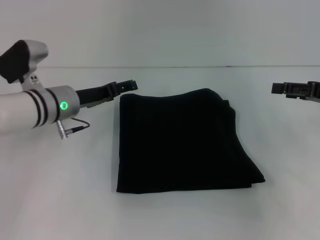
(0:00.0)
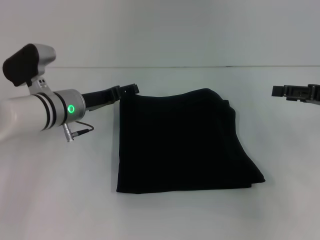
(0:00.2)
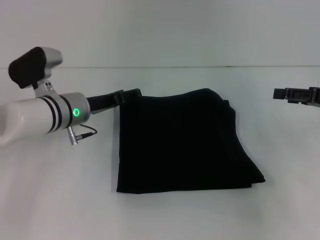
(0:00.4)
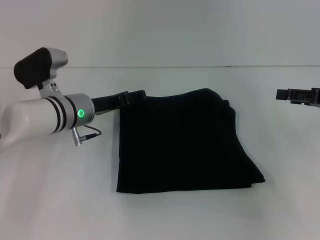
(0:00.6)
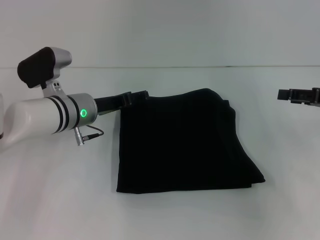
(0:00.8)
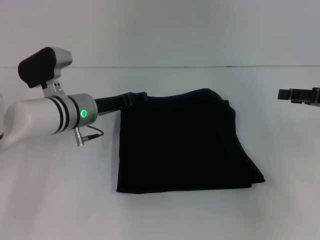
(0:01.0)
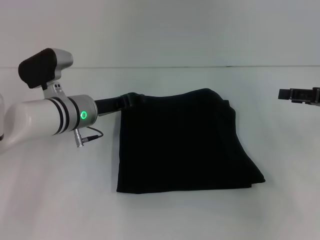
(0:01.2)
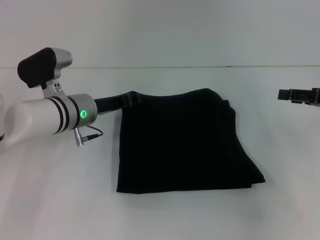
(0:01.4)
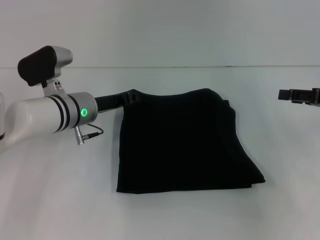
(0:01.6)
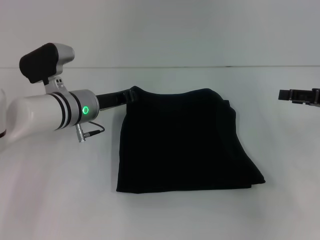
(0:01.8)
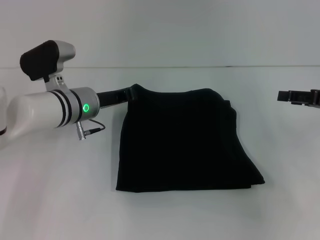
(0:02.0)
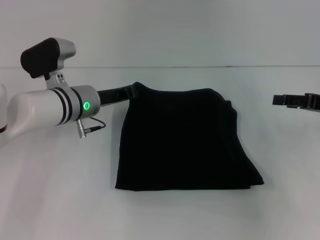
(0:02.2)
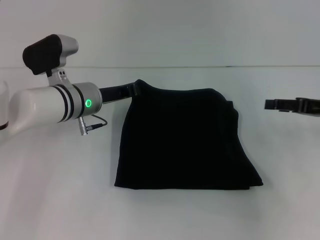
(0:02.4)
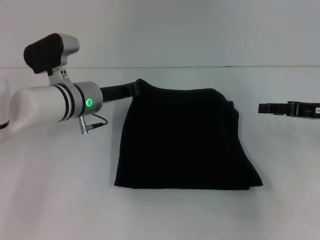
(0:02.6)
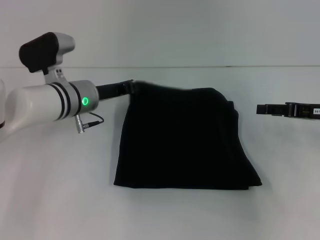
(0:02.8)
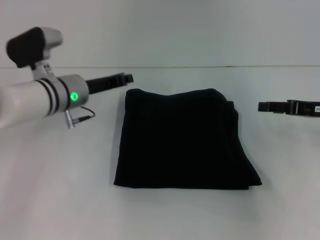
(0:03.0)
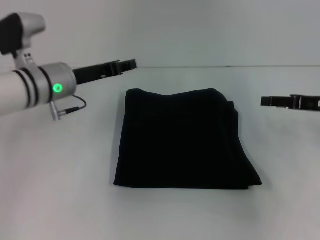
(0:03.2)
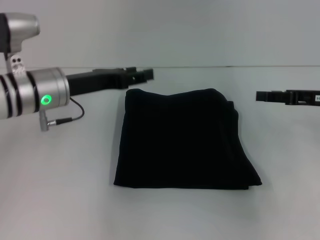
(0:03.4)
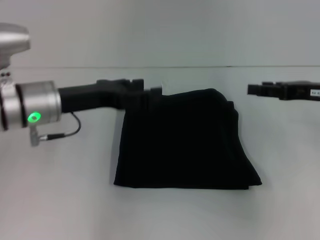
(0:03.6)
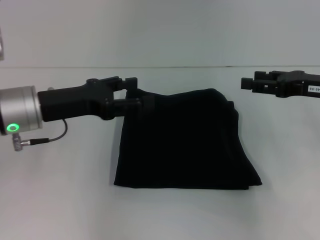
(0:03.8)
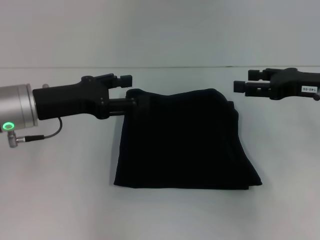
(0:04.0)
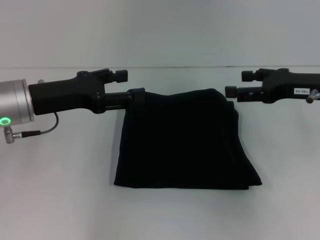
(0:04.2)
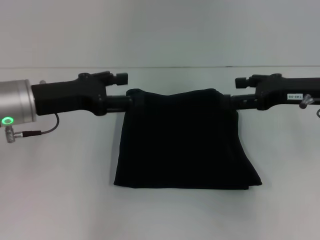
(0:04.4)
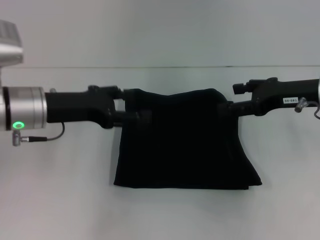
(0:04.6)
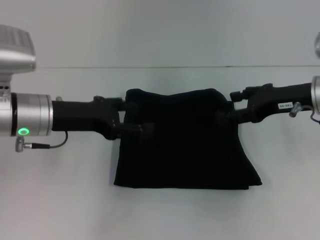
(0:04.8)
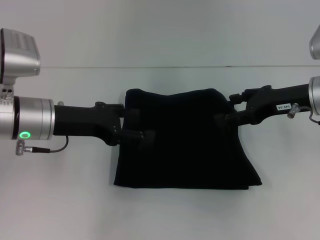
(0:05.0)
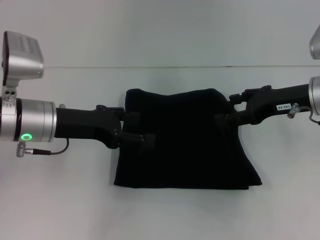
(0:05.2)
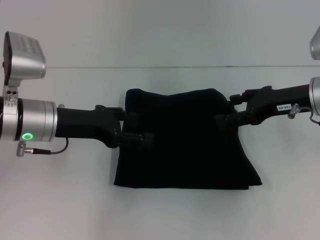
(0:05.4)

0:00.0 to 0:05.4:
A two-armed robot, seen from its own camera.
0:00.0 to 0:01.4: The left gripper closes.
0:01.4 to 0:02.8: The left gripper closes its fingers.
0:02.8 to 0:04.0: The right gripper changes place by about 5 cm. Meanwhile the left gripper travels backward, to the left and upward by about 10 cm, and opens up.
0:04.0 to 0:05.4: The grippers move only a little.

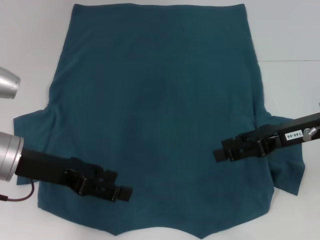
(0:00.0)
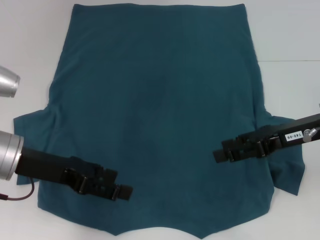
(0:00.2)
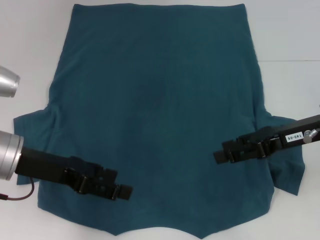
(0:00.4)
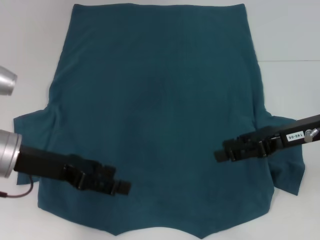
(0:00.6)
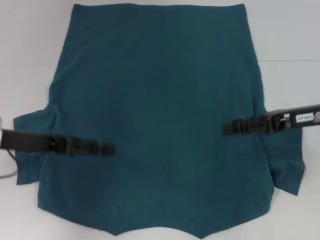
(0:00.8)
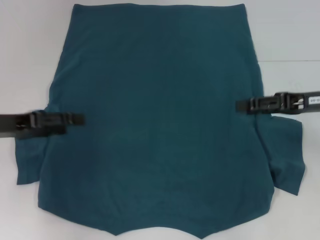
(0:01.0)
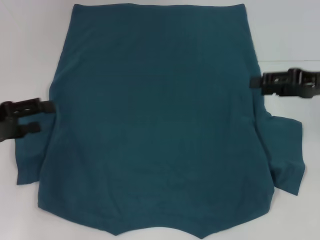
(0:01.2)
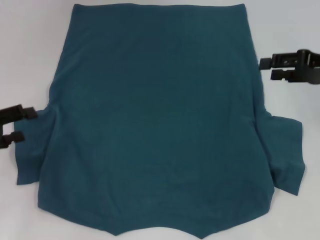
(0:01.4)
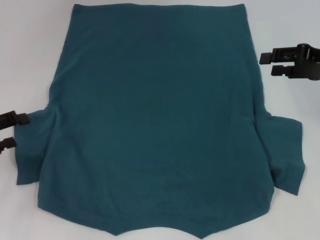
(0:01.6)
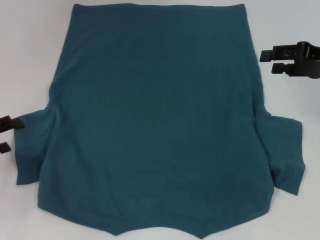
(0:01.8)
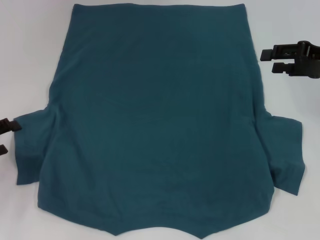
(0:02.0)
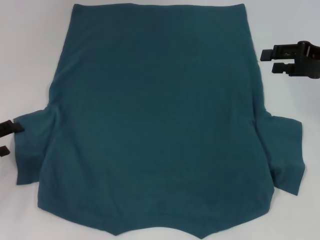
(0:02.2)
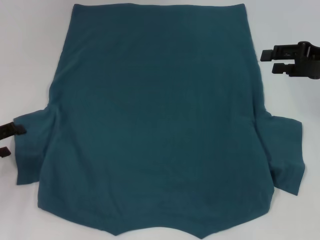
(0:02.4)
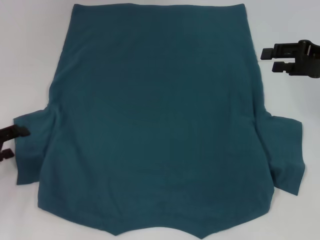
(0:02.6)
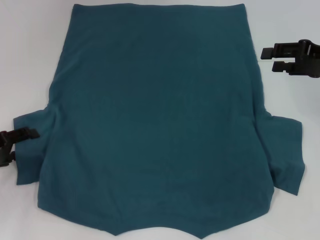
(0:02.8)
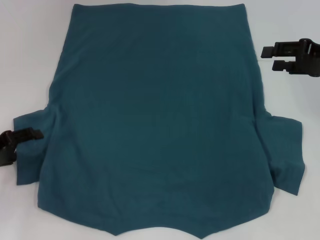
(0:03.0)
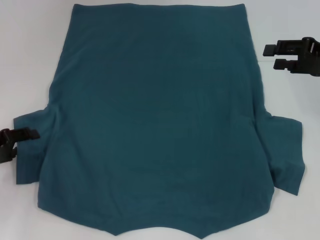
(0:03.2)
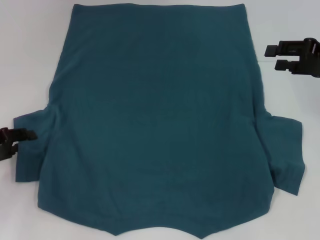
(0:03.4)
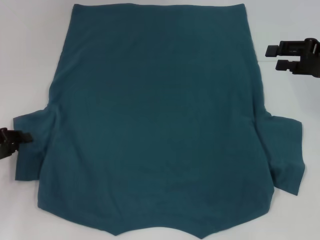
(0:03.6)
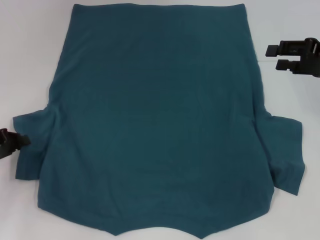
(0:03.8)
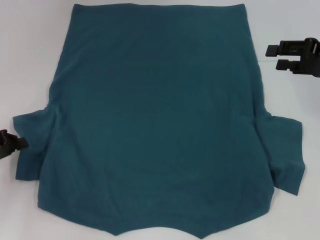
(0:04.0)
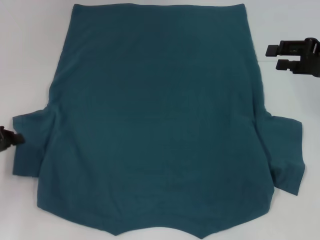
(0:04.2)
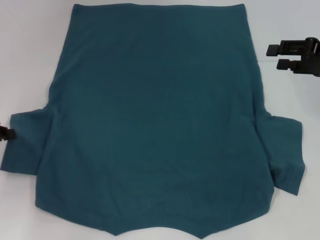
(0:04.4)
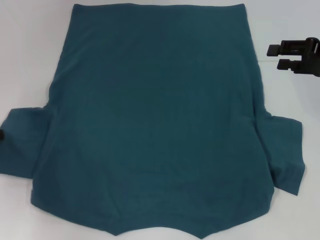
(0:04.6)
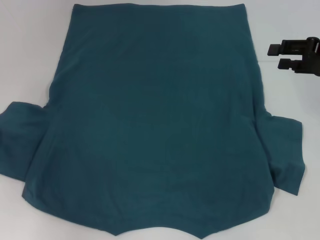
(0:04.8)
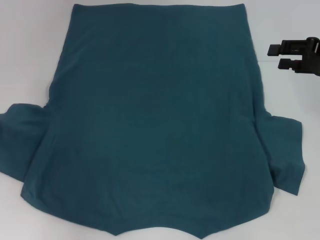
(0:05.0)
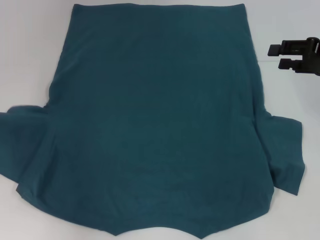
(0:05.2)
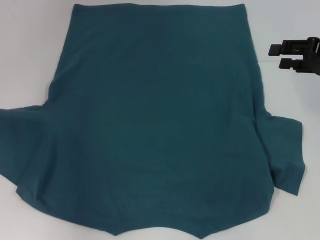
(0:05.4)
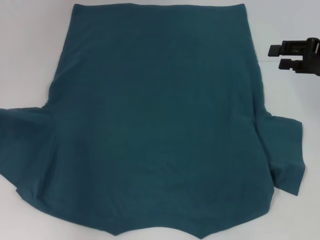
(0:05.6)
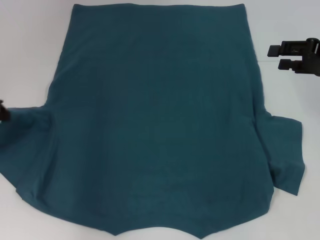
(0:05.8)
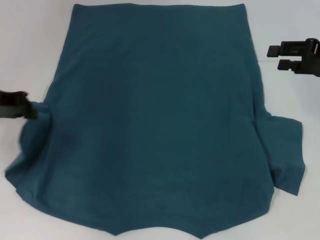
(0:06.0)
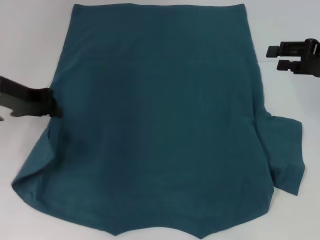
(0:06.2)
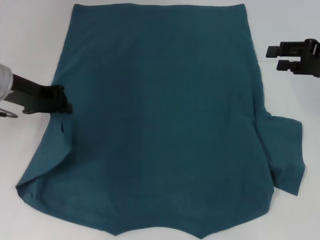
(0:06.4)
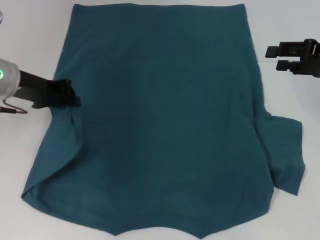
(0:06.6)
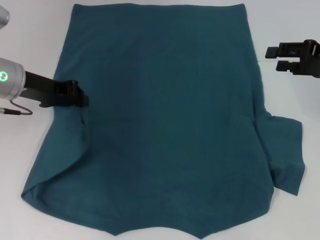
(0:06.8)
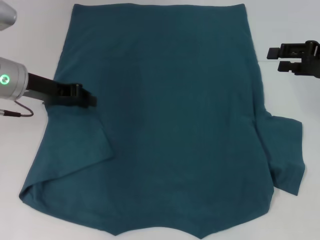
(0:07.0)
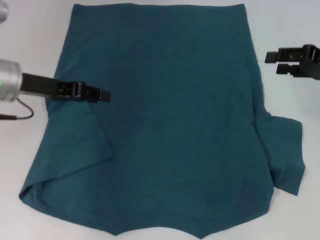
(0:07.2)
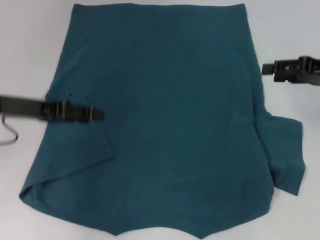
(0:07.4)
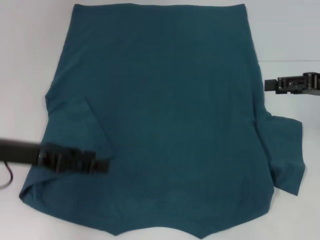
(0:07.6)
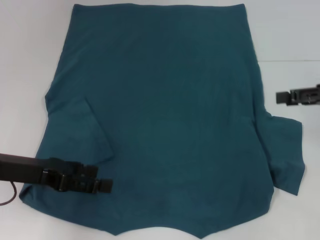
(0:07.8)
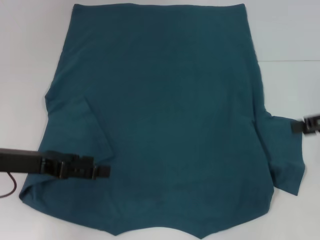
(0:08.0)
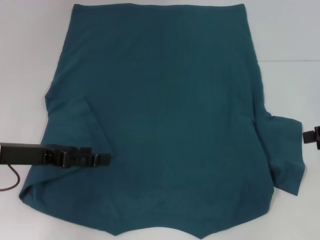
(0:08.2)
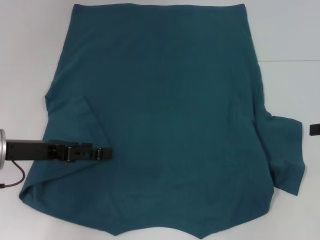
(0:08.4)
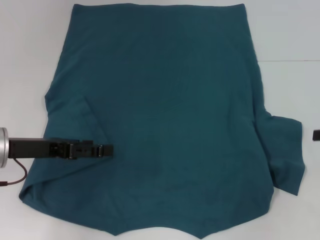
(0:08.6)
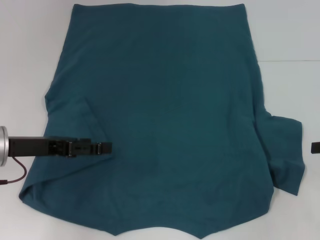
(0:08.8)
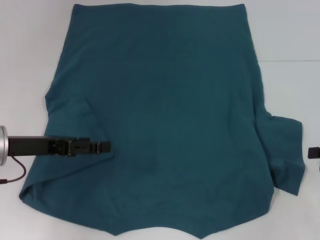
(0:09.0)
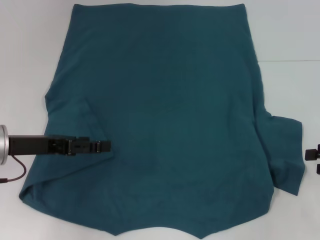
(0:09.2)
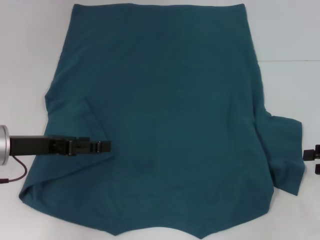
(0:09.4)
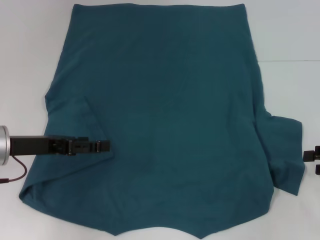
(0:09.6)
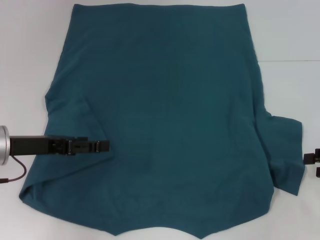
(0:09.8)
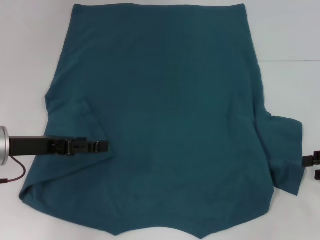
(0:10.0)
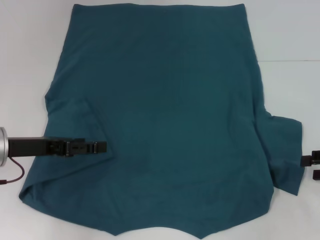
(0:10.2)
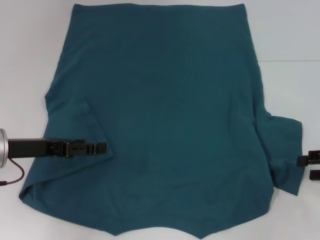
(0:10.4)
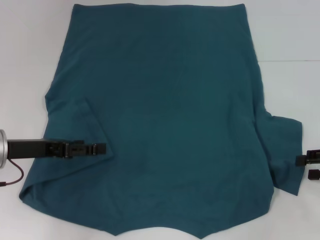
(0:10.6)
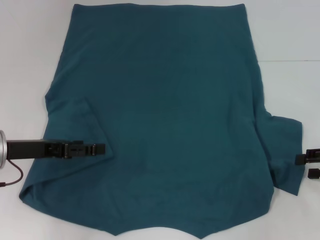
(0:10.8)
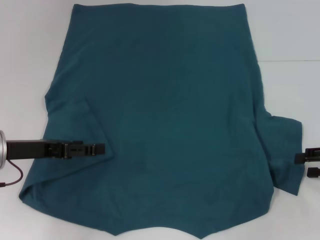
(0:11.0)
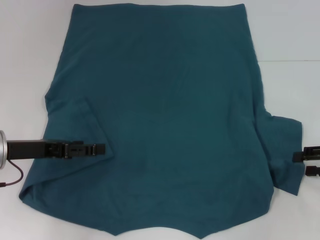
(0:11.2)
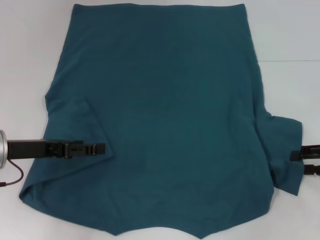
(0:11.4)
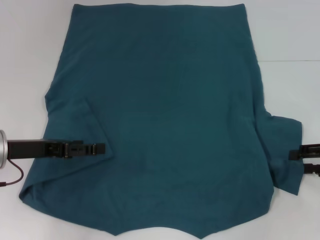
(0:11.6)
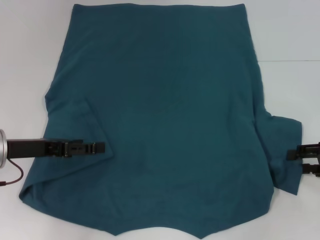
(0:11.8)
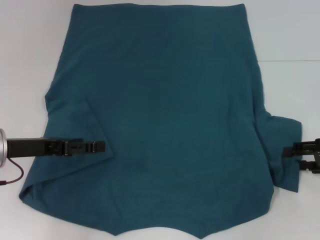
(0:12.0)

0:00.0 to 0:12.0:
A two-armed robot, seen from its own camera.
Step, 0:00.0 to 0:07.2: Fold the bottom left sleeve with your left hand.
0:00.0 to 0:01.6: The left gripper heads to the left, covering about 15 cm, while the right gripper moves to the right and forward, approximately 10 cm.
0:01.6 to 0:03.0: The grippers stay close to where they were, moving slightly.
0:03.0 to 0:04.4: The left gripper closes.
0:04.4 to 0:06.0: The left gripper is displaced upward, forward and to the right by about 10 cm.
0:06.0 to 0:07.6: The left gripper heads backward, covering some 5 cm, and opens its fingers.
0:07.6 to 0:09.0: The right gripper goes approximately 10 cm backward, to the right and downward.
0:09.0 to 0:12.0: There are only small adjustments of the grippers.

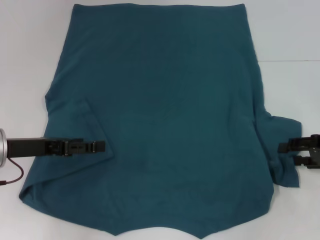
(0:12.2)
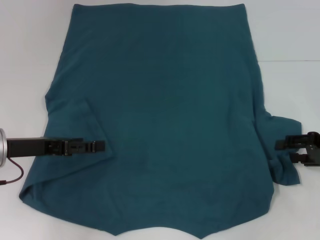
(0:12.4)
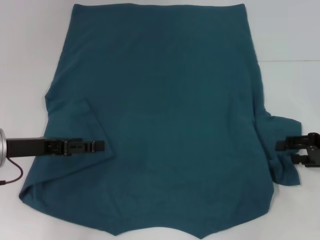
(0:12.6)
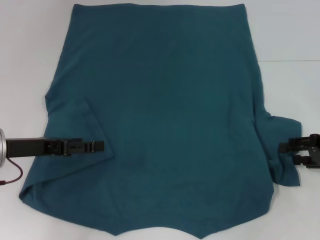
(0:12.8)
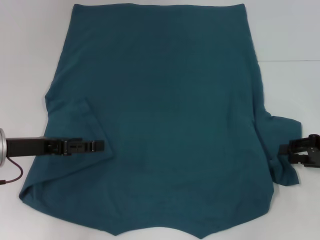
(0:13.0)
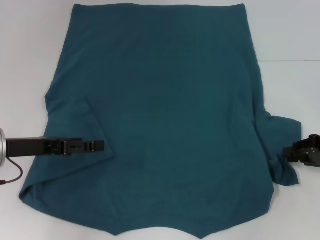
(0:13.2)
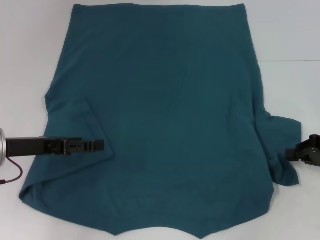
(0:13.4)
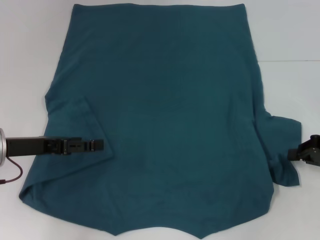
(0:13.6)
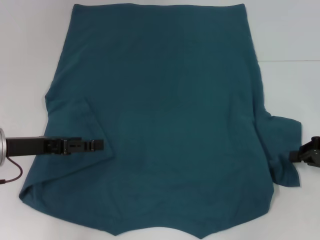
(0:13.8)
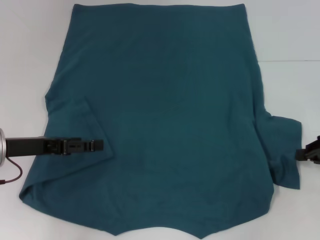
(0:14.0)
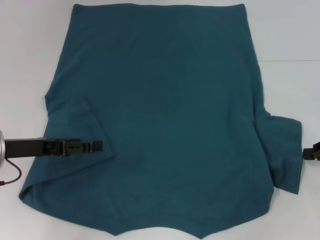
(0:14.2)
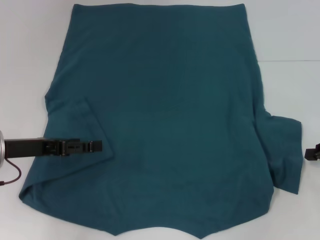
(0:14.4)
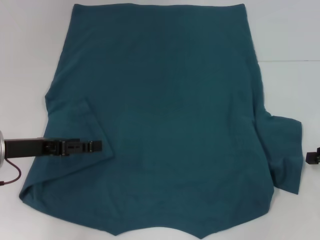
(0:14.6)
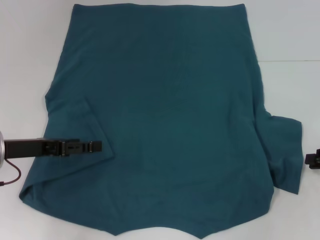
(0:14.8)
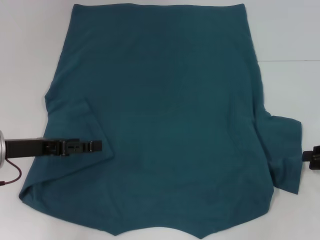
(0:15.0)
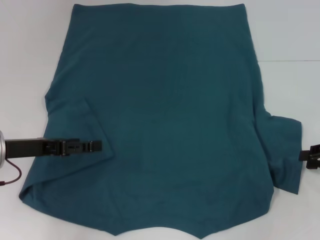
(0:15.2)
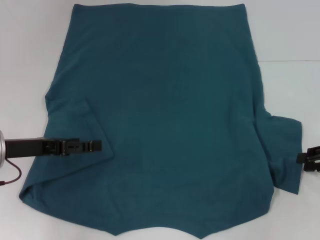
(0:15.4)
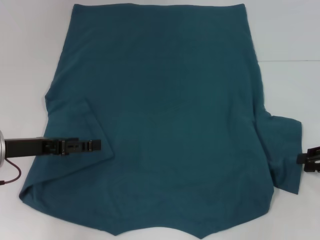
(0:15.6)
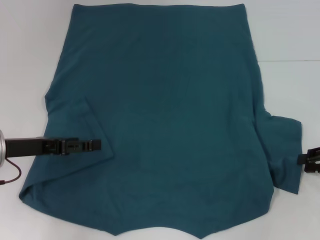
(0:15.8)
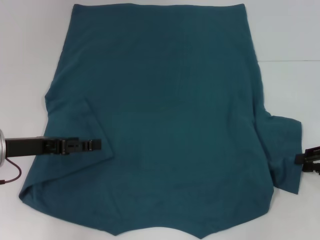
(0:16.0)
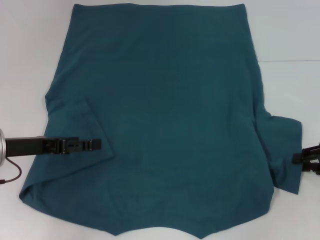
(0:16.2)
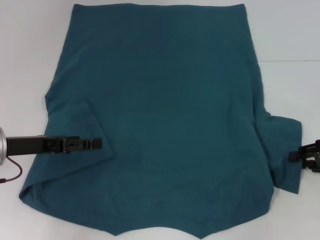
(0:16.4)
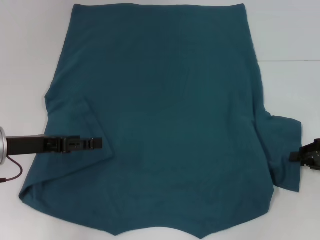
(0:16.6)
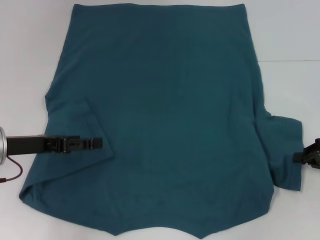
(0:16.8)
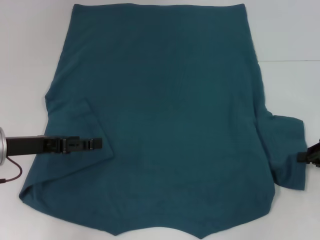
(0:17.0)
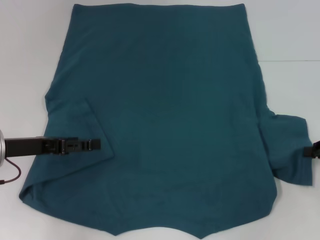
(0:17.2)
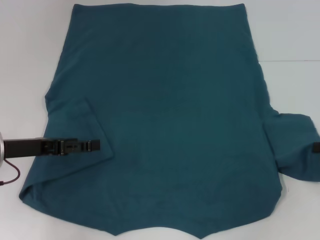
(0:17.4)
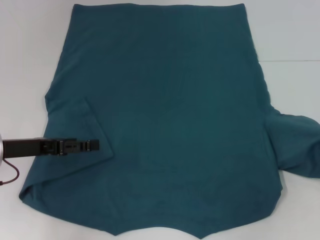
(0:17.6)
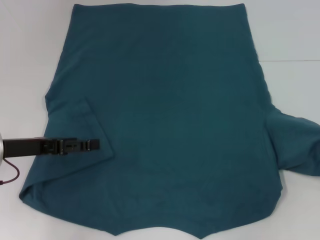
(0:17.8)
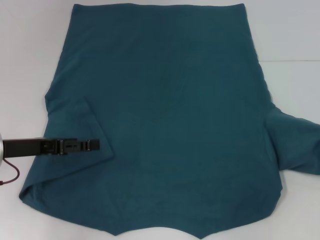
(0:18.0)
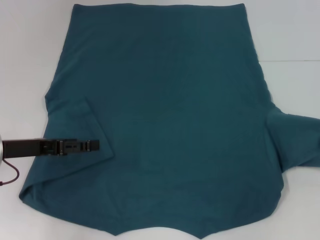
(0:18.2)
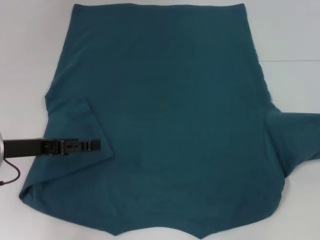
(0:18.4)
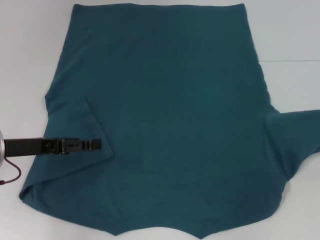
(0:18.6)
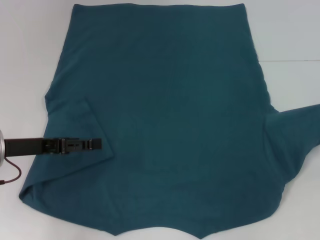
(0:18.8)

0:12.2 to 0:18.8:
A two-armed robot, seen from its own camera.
0:12.2 to 0:13.8: The right gripper closes up.
0:13.8 to 0:15.4: The right gripper opens its fingers.
0:15.4 to 0:17.2: The right gripper closes.
0:17.2 to 0:18.8: The right gripper goes approximately 5 cm upward.
